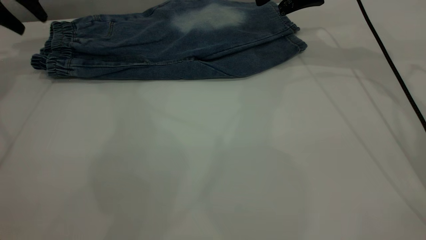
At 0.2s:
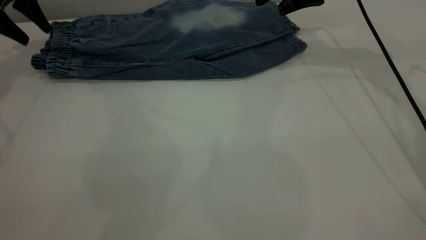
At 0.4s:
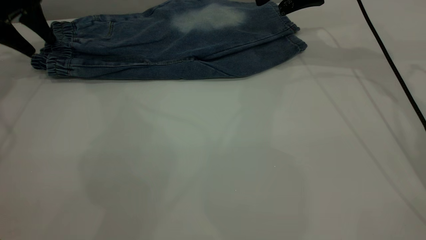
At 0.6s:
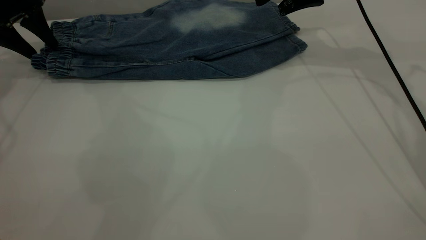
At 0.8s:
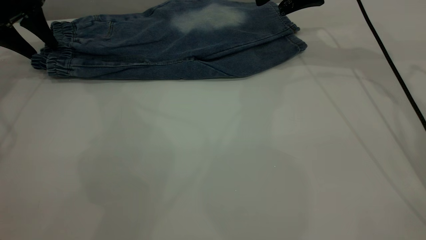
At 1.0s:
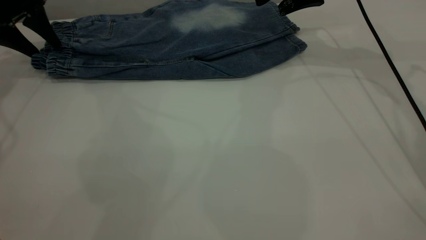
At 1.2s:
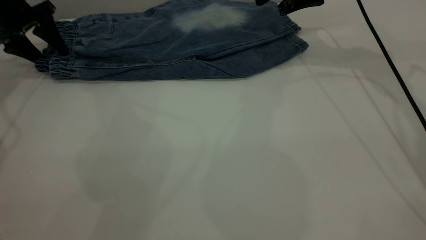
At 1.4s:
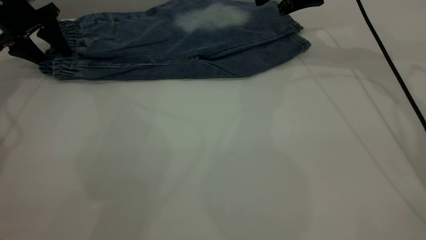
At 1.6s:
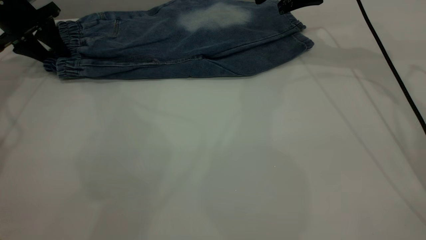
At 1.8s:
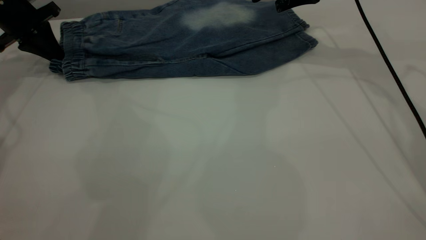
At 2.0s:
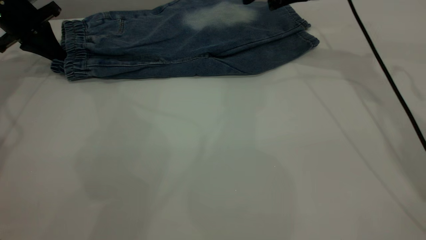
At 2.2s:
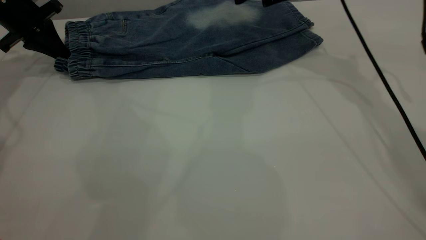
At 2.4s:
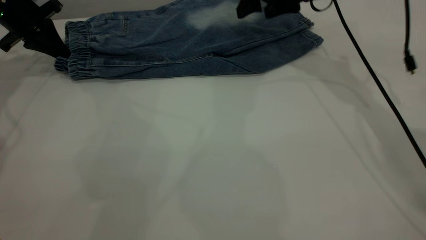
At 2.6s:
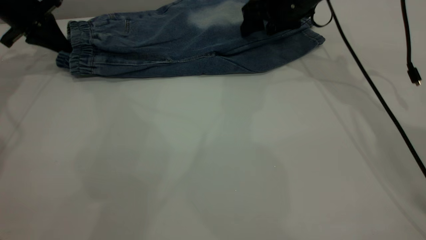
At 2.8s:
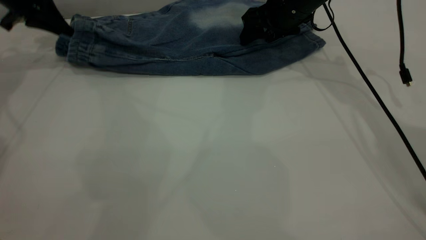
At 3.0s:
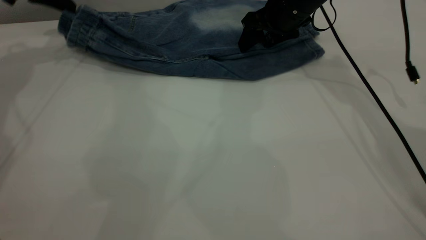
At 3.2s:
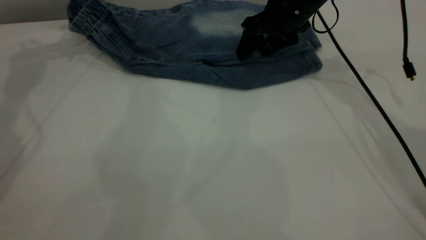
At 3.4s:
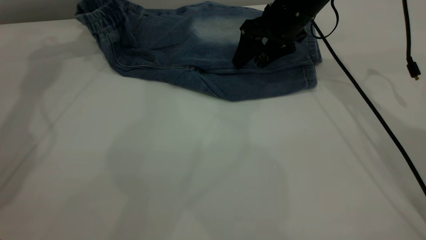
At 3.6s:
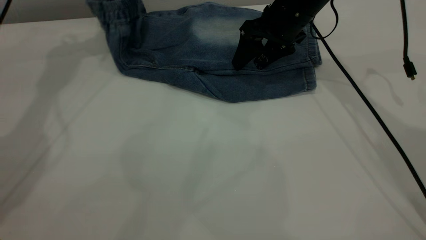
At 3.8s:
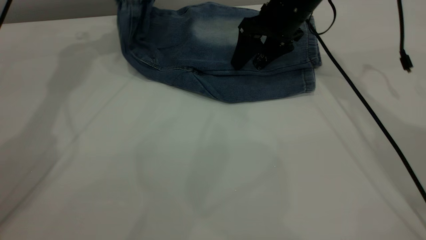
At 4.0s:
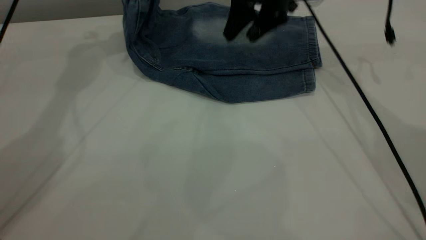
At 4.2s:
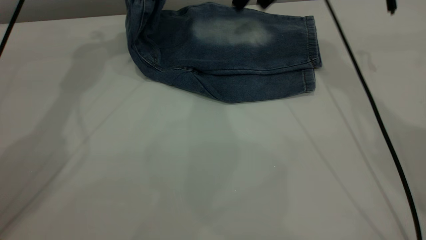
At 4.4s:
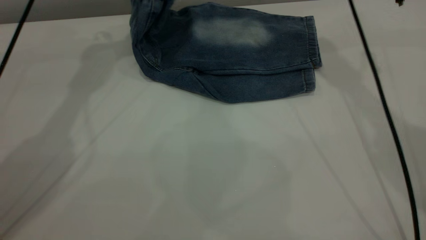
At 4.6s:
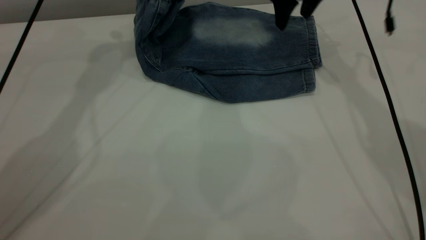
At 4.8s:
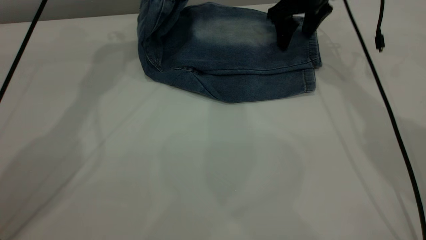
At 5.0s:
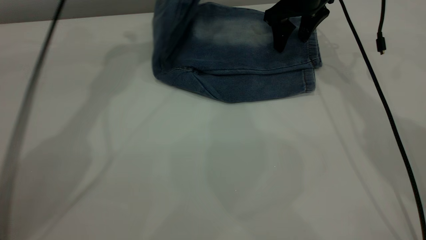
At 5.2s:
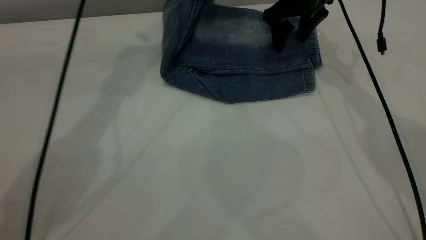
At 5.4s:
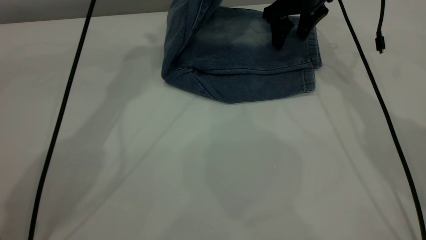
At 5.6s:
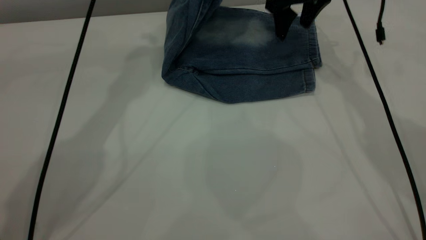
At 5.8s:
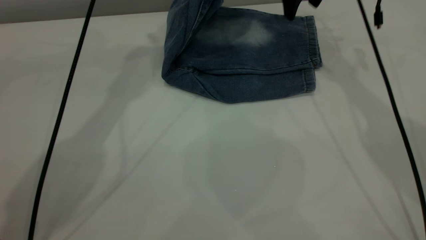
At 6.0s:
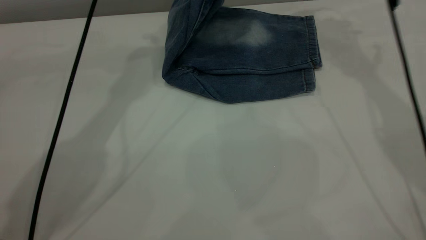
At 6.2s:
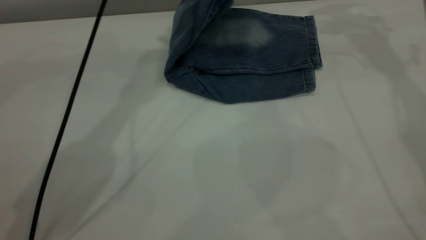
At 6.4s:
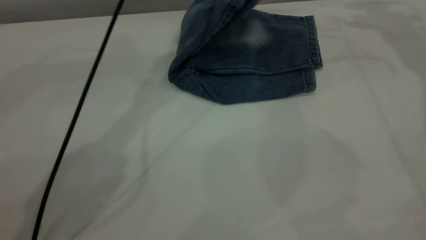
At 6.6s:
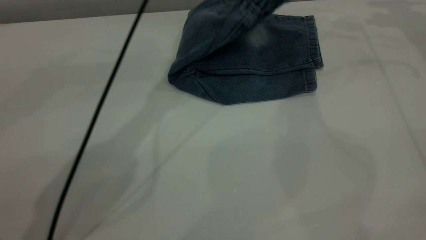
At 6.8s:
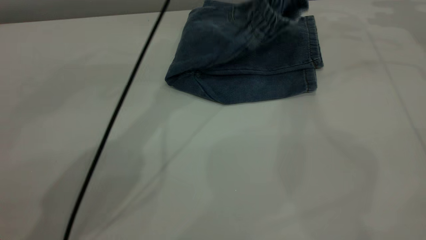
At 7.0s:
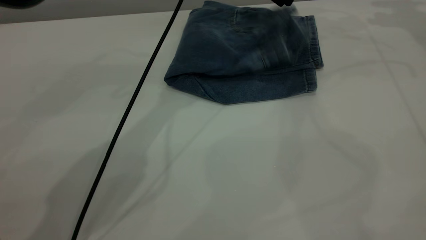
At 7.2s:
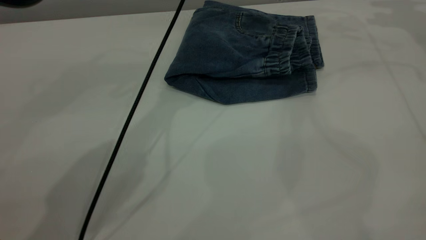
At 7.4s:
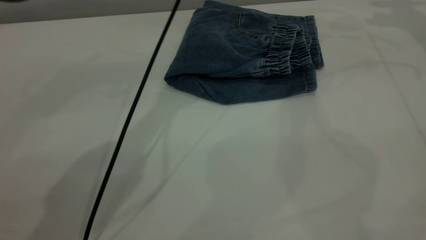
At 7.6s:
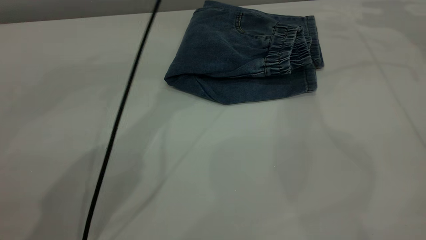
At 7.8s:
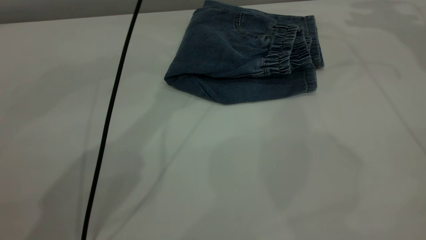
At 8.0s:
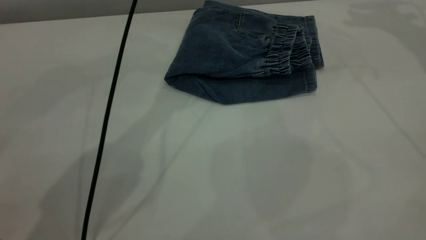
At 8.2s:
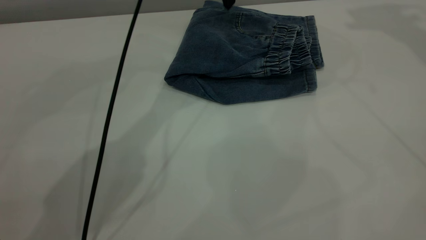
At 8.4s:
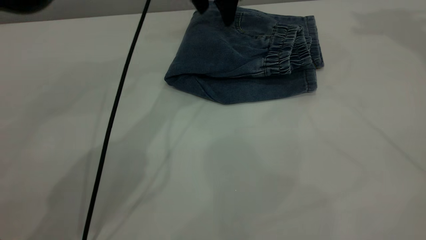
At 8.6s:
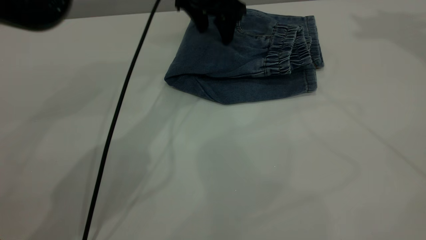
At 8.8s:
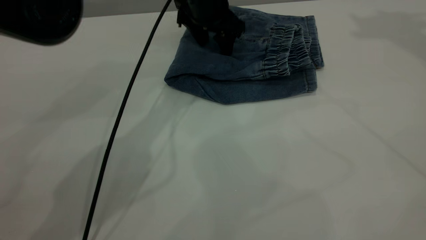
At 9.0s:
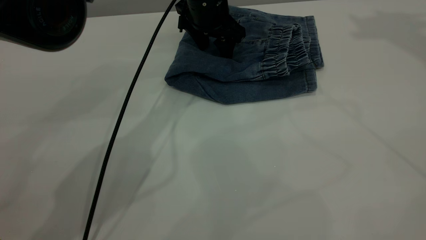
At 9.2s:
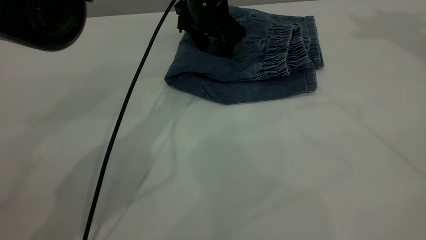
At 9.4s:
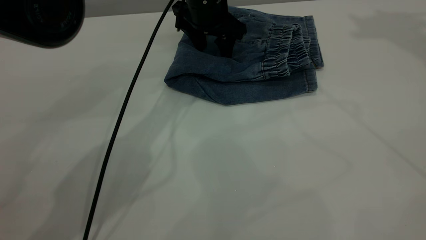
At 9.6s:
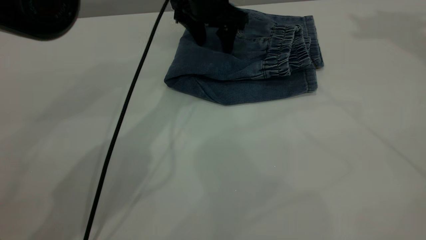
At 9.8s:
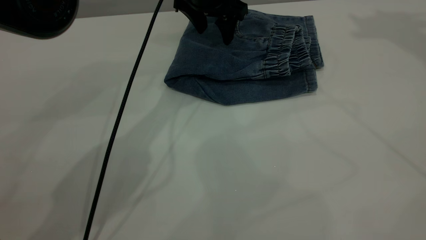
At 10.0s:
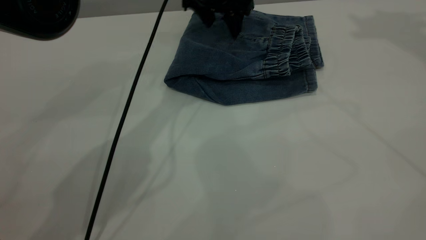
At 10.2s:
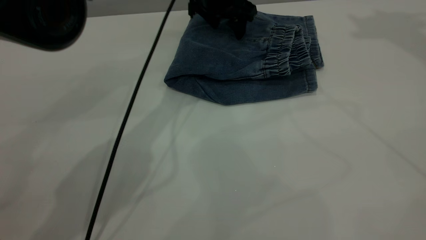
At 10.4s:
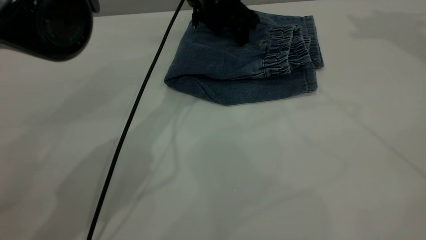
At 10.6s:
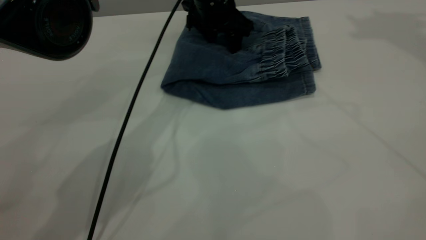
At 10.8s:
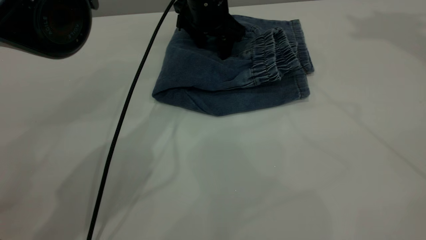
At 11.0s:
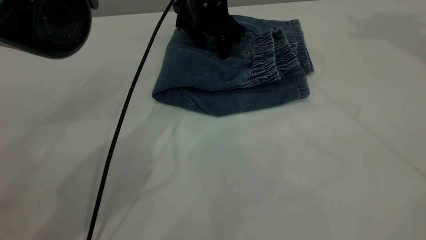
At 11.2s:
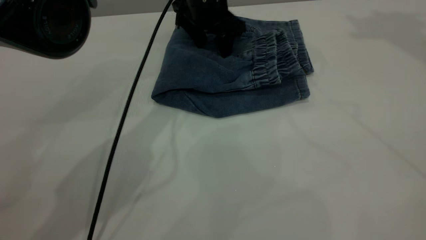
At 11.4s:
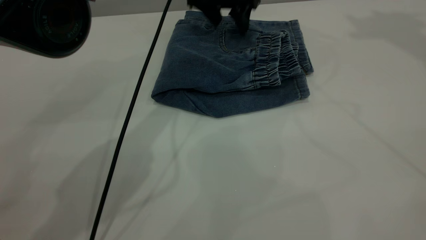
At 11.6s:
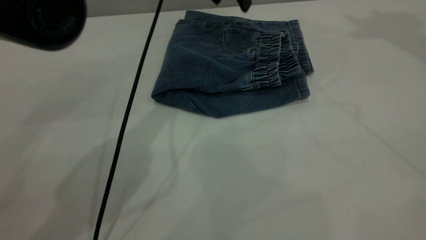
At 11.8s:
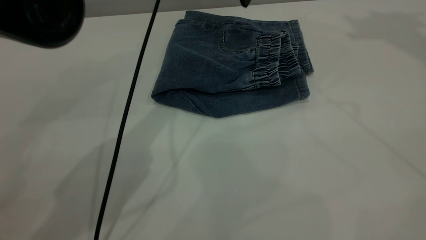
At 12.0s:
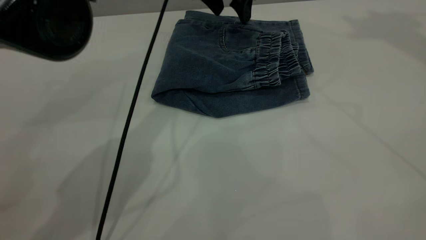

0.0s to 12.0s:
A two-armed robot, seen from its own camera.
Step, 0.0s to 7.4s: Fold the pants from left to right.
0.0s to 1.6s: The left gripper heads downward, covering roughly 5 cm, and closes up.
1.6s to 3.0s: The right gripper heads downward and to the left, covering roughly 10 cm. The left gripper shifts about 5 cm upward, and closes up.
3.0s to 4.4s: The right gripper shifts roughly 10 cm upward. The left gripper travels to the right by roughly 20 cm.
4.4s to 6.0s: Both grippers travel together to the right, about 10 cm. The right gripper goes downward and returns, some 5 cm each way.
6.0s to 7.6s: The right gripper shifts about 15 cm to the right; the left gripper travels to the right and downward by some 10 cm, and opens its fingers.
7.6s to 9.0s: The left gripper heads downward, covering approximately 10 cm; the right gripper heads upward and backward, covering some 25 cm.
9.0s to 10.4s: The grippers stay close to where they were, moving slightly.
10.4s to 12.0s: The left gripper goes some 5 cm upward.

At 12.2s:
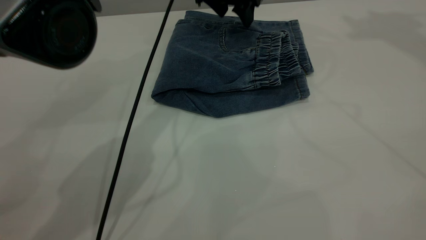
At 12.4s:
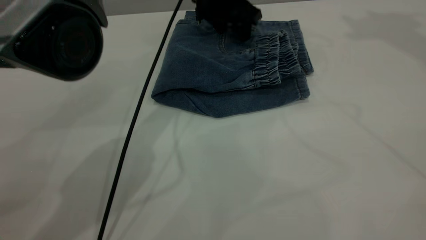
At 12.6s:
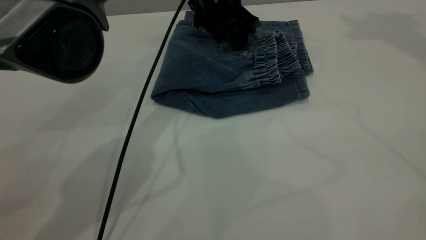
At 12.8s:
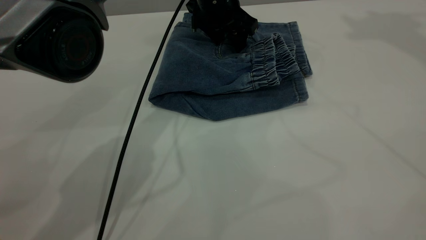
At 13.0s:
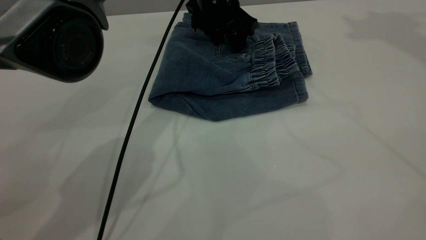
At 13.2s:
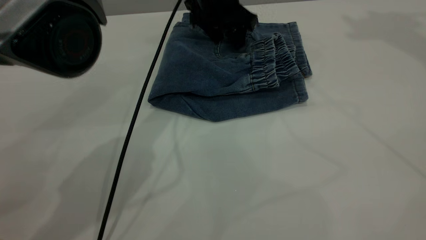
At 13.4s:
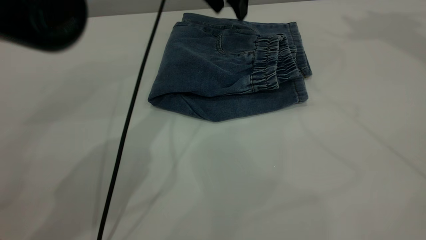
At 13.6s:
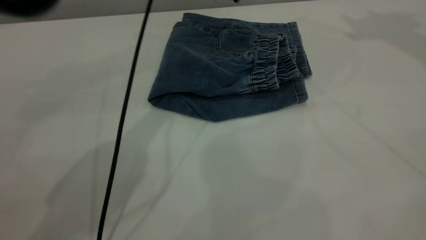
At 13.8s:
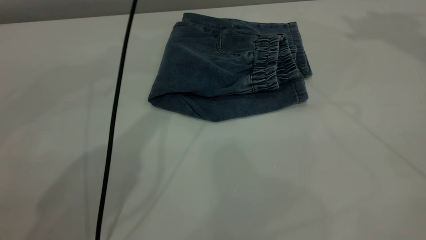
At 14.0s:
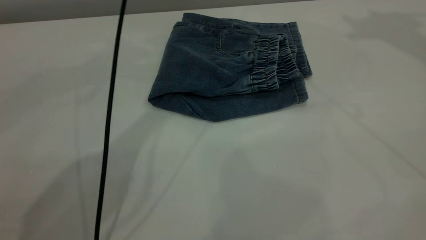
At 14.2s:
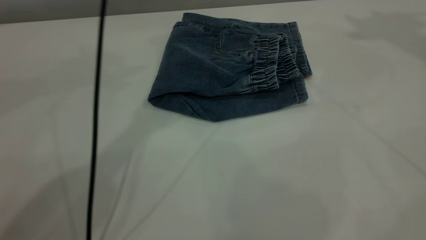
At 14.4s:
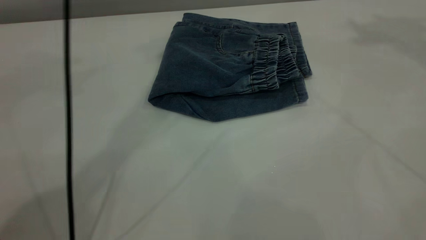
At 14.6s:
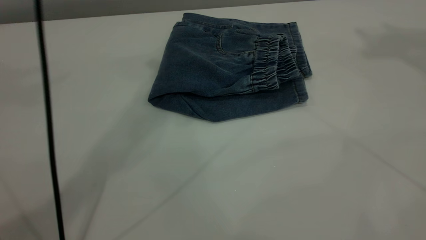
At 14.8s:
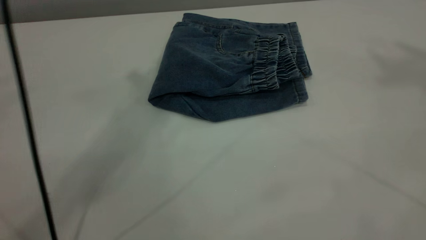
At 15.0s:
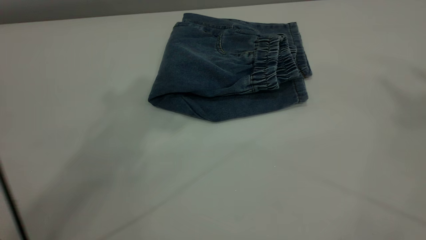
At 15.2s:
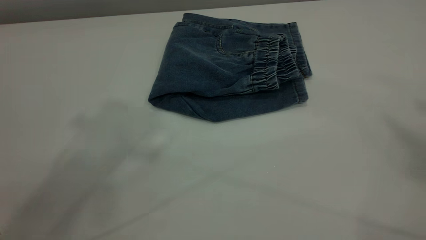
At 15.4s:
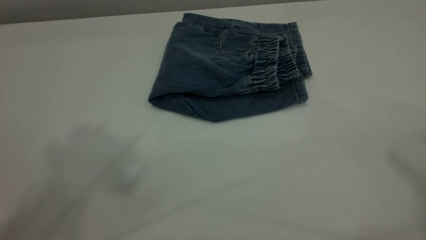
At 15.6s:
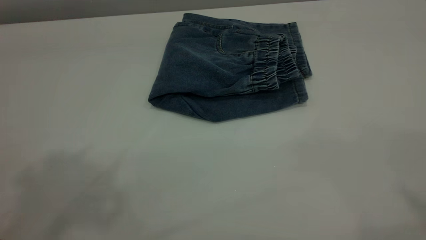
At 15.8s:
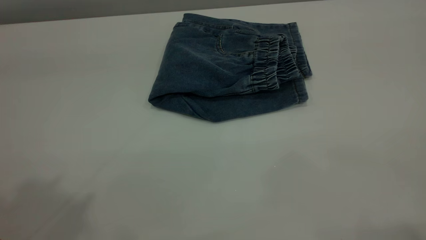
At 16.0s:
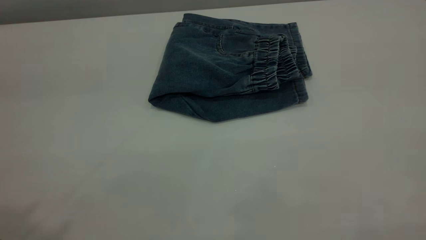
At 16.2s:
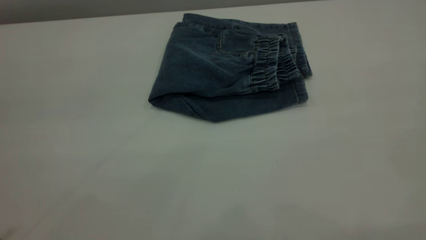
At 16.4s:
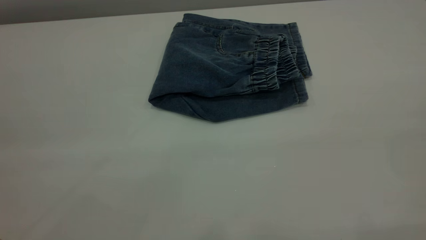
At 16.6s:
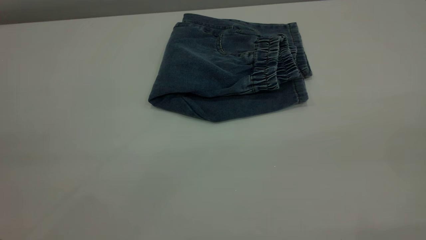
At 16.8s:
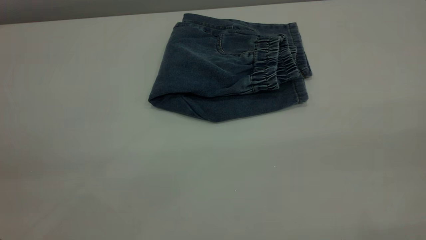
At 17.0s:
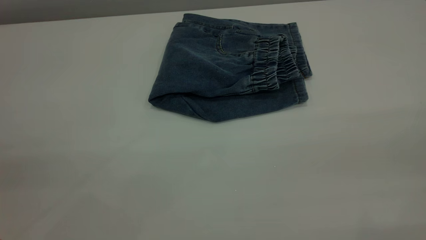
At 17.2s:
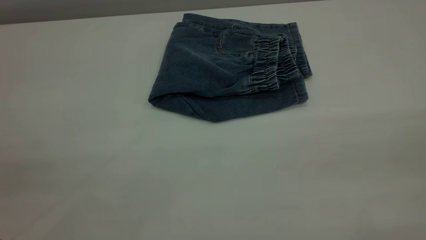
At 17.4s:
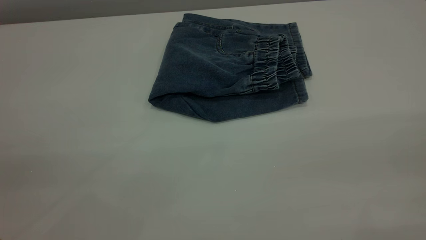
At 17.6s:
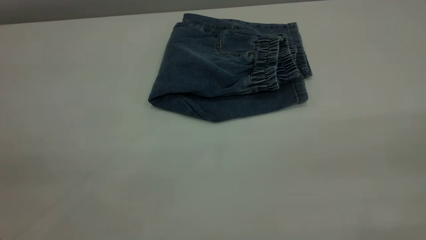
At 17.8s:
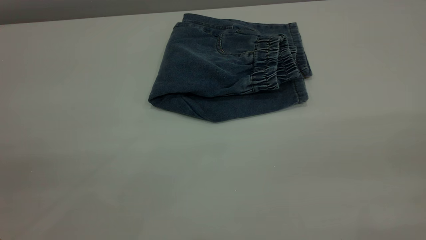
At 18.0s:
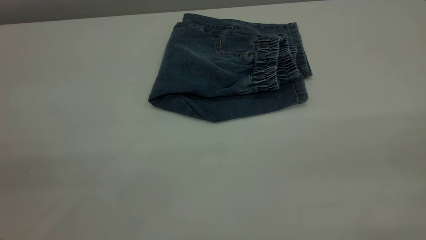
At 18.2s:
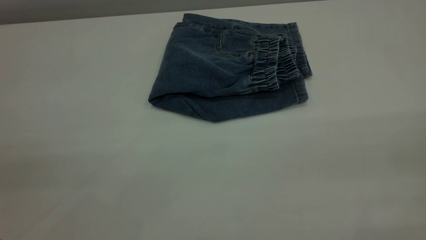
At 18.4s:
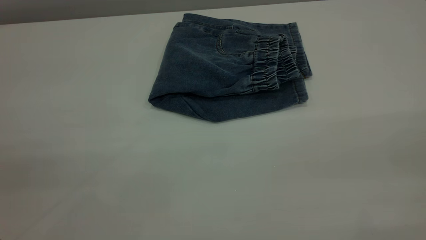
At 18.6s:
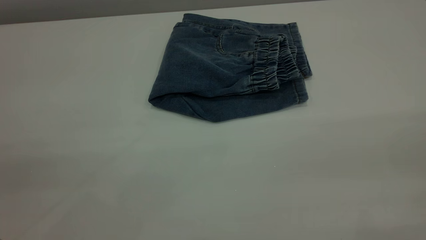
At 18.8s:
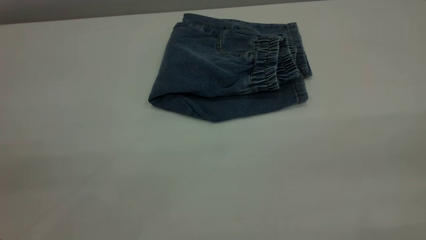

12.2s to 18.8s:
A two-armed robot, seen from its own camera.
12.2s to 13.8s: The left gripper is displaced upward by some 10 cm.
13.8s to 15.4s: The left gripper is displaced upward, backward and to the left by approximately 40 cm.
17.2s to 18.8s: Neither gripper changes place.
